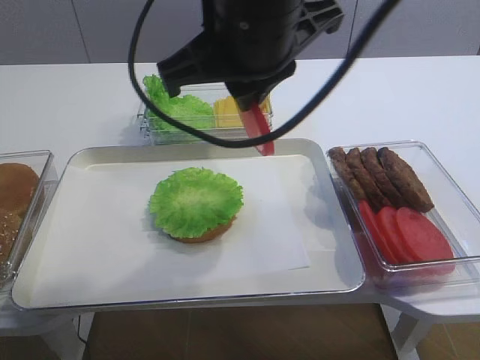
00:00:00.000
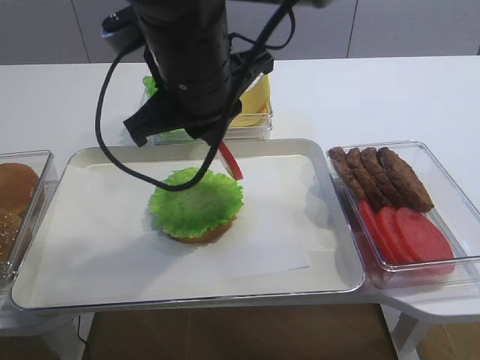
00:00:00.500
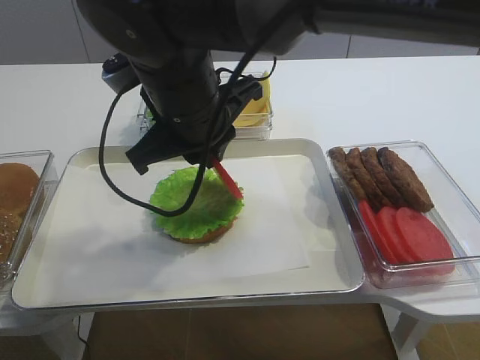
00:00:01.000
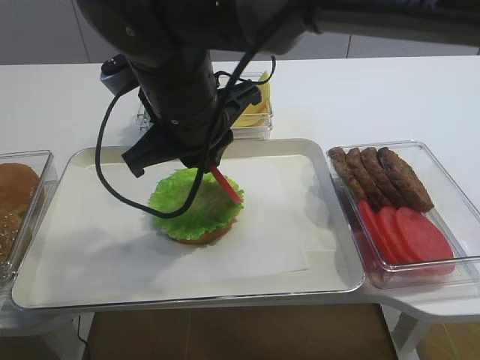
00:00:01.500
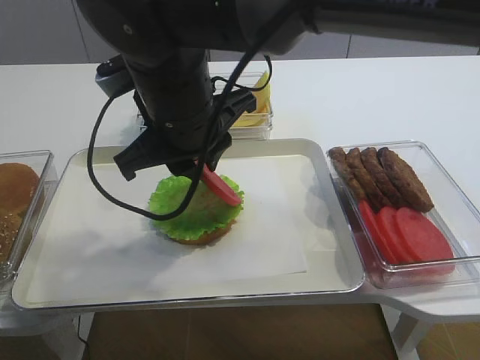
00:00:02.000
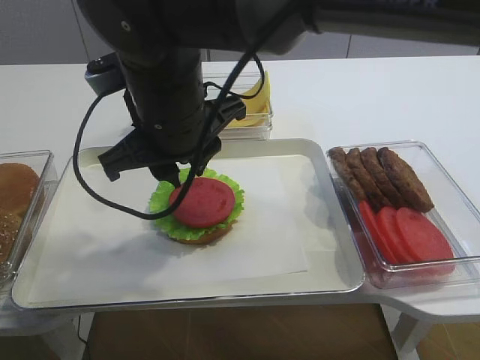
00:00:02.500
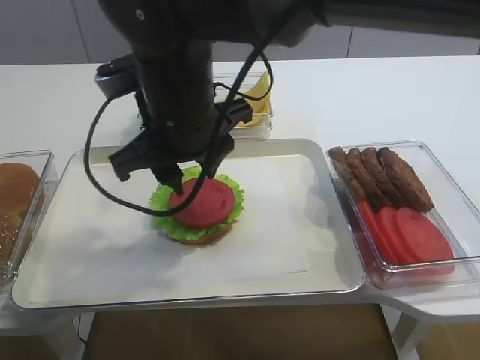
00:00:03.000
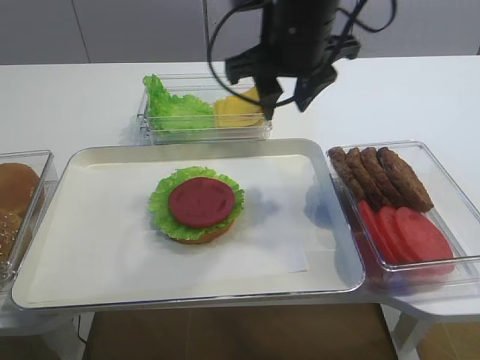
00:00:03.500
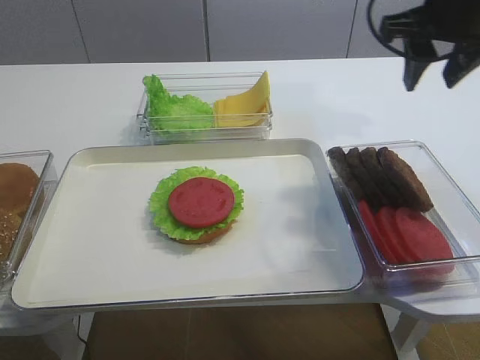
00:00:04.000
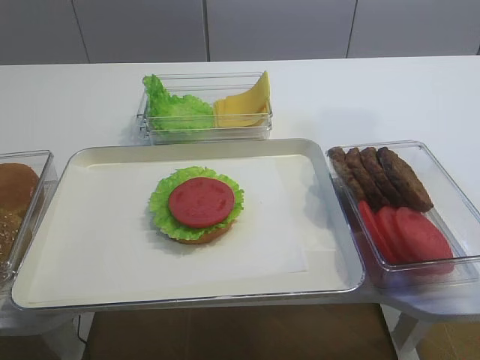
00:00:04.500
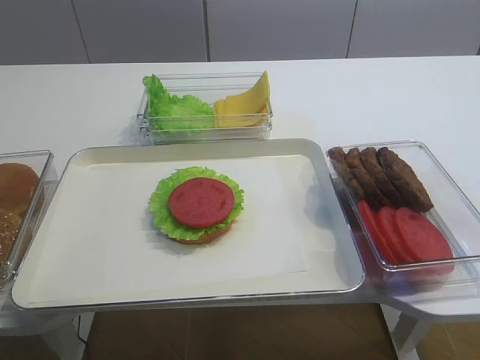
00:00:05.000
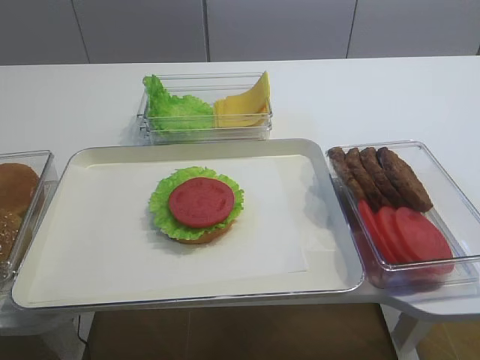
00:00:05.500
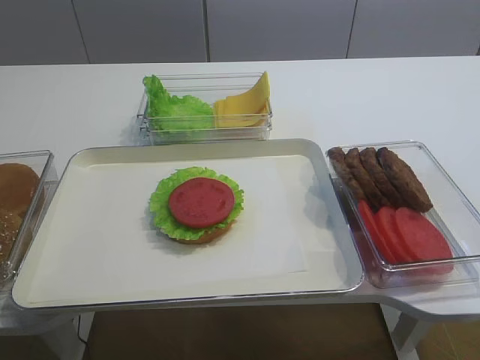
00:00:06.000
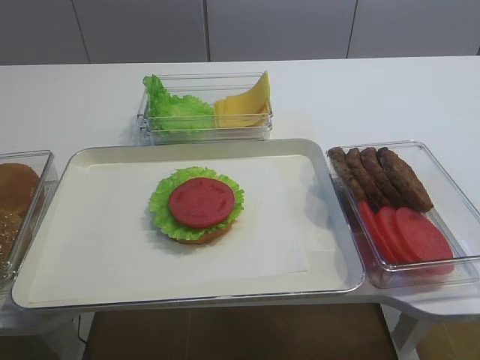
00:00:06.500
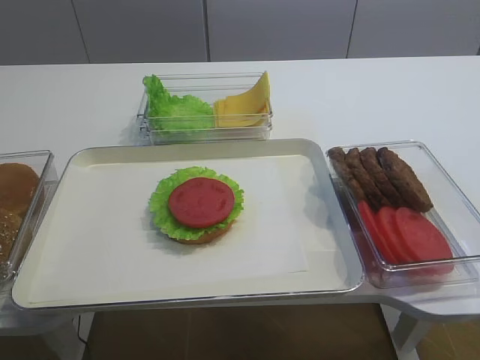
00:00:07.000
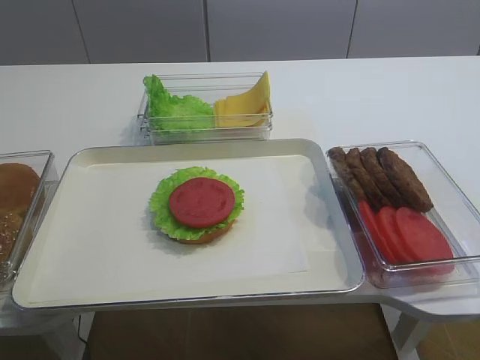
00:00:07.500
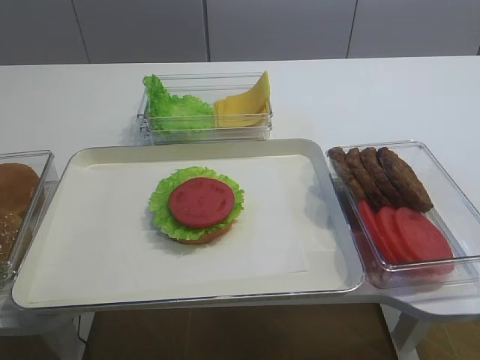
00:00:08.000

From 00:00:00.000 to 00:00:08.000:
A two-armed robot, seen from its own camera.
Step, from 00:00:00.000 to 00:00:03.000: Place the tomato slice on the lettuce leaf with the right gripper.
From 00:00:00.000 to 00:00:02.000: The right gripper travels downward and to the left by some 10 cm, and opens its fingers.
From 00:00:02.000 to 00:00:04.000: The right gripper travels to the right by roughly 25 cm, and opens.
From 00:00:04.000 to 00:00:06.000: The right gripper goes approximately 35 cm backward.
